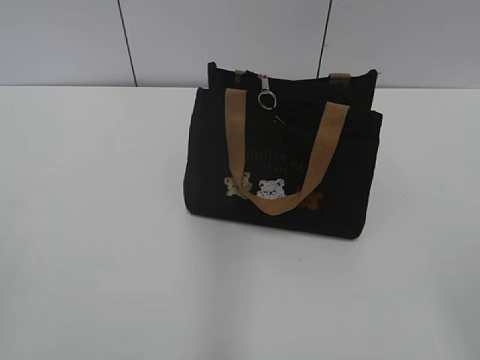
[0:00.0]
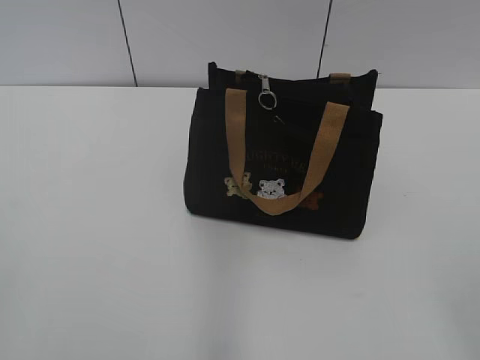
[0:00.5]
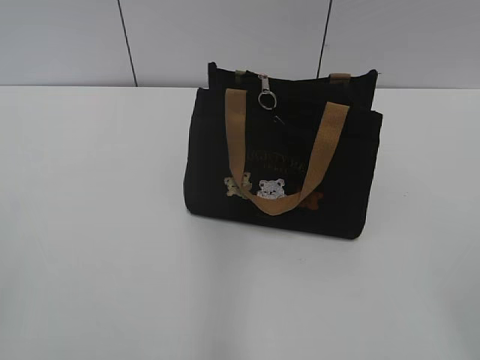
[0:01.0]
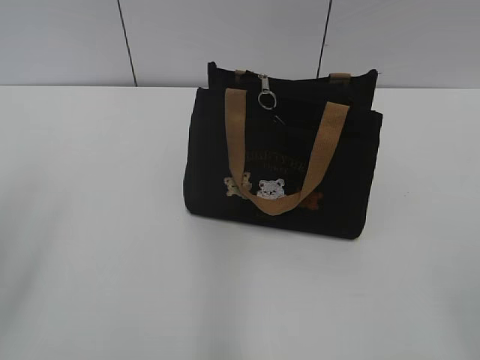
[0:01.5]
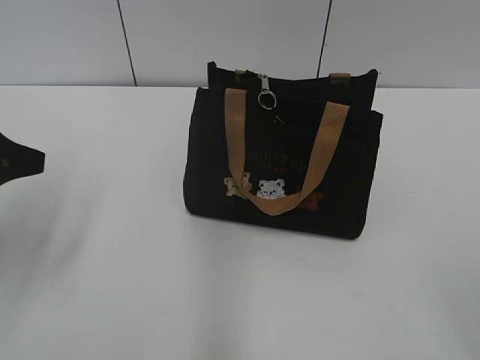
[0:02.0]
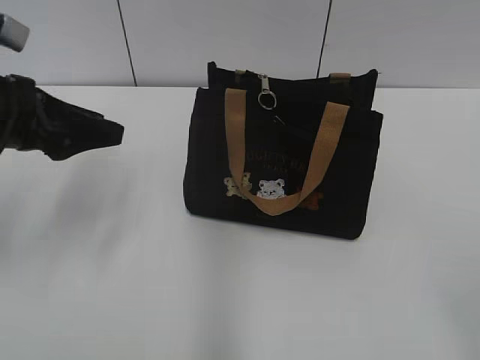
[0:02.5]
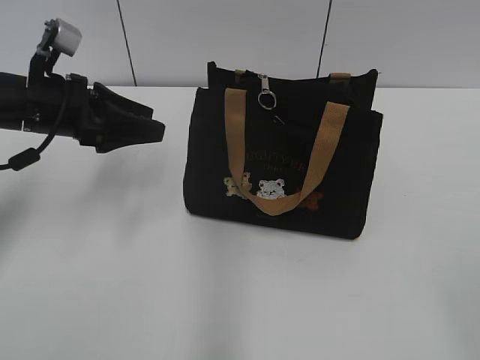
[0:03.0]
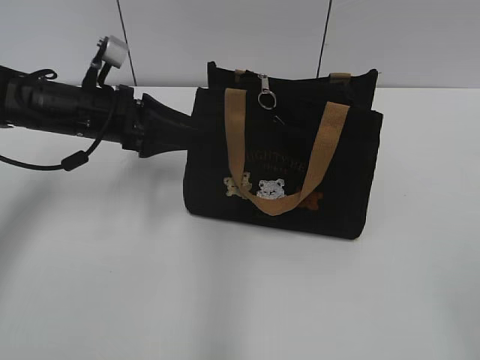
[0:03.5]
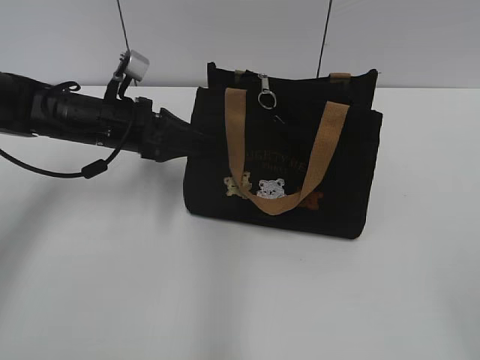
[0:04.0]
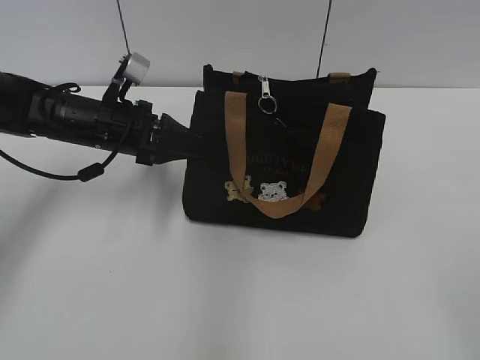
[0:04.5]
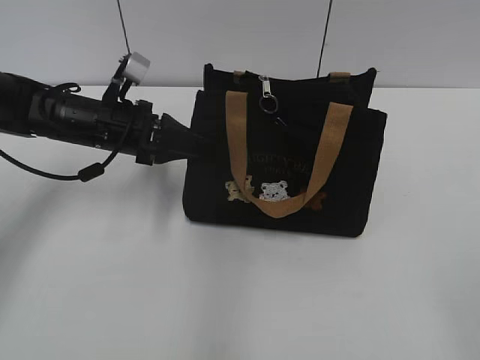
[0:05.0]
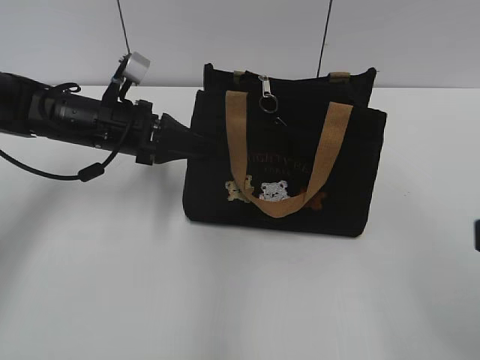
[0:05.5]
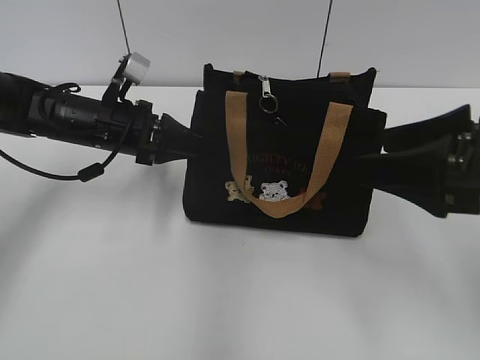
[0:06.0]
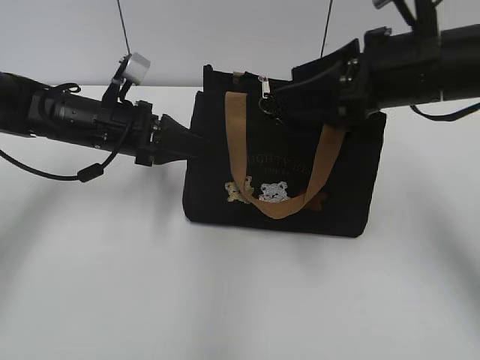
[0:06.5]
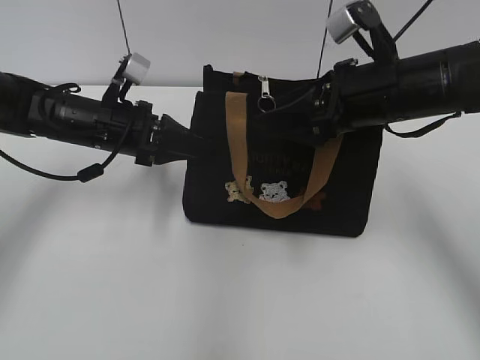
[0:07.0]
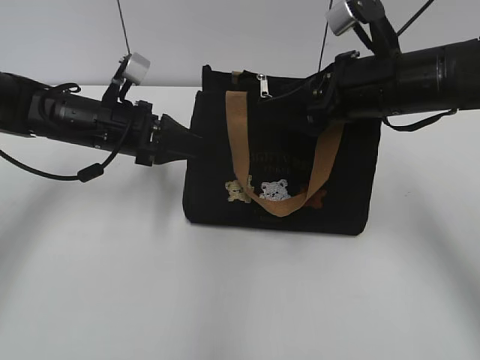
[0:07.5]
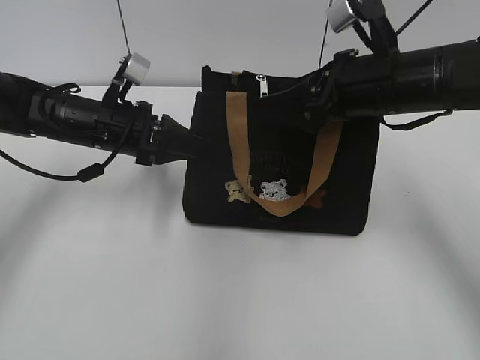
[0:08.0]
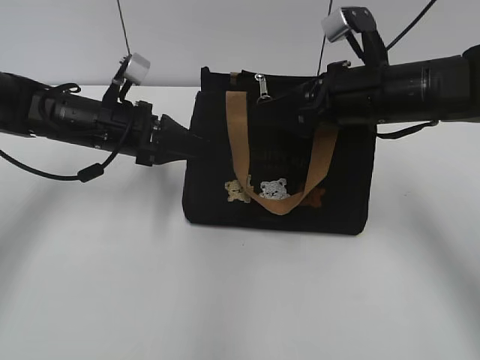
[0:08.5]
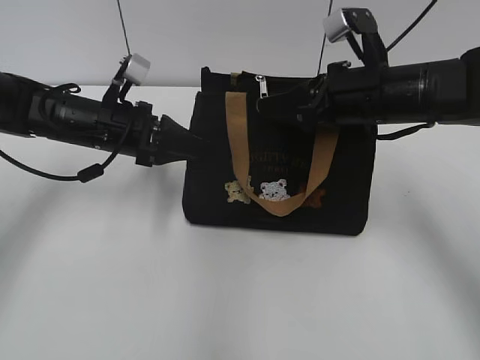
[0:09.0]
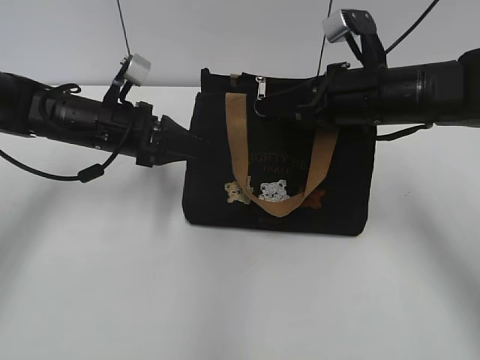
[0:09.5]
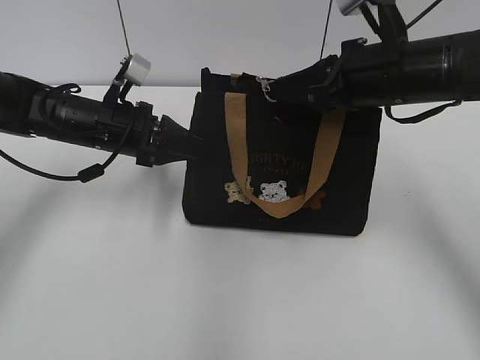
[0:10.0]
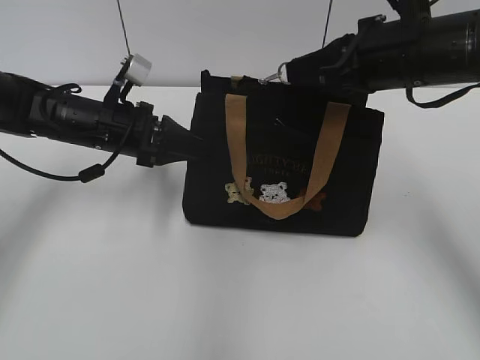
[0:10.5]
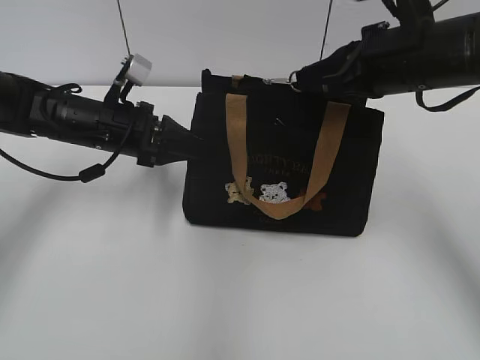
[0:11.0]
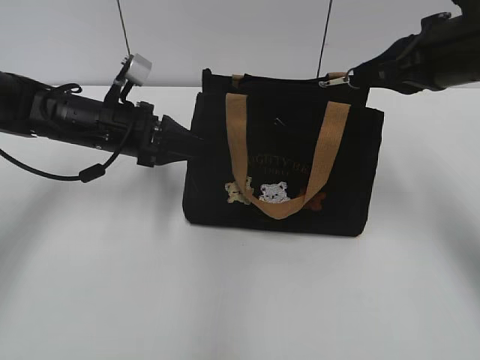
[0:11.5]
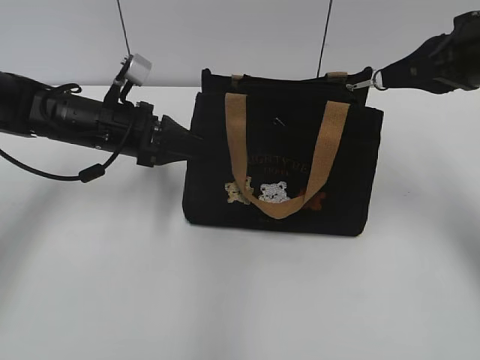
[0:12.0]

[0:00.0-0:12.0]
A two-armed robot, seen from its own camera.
0:02.0 to 0:04.0: The left gripper travels forward, to the right and downward by about 25 cm.
0:04.0 to 0:06.0: The right gripper travels forward by approximately 20 cm, while the left gripper closes up.
0:06.0 to 0:08.0: The right gripper moves forward and to the left, roughly 15 cm.
0:08.0 to 0:10.0: The right gripper closes up.
0:10.0 to 0:12.0: The right gripper shifts some 10 cm to the right.

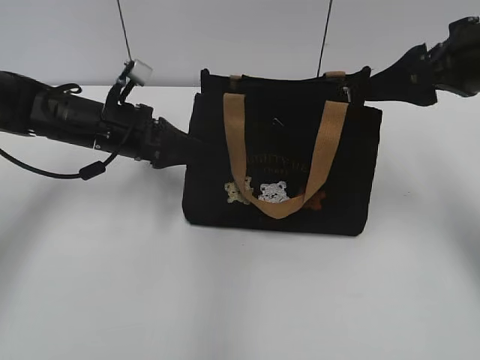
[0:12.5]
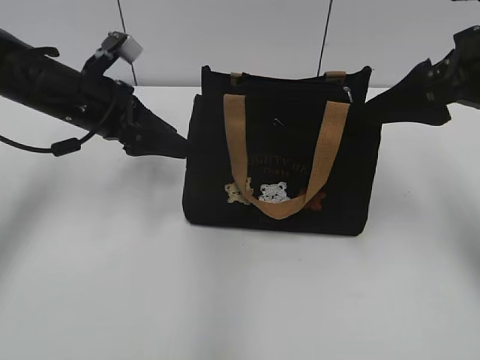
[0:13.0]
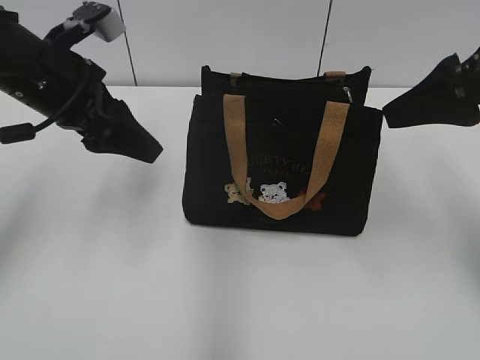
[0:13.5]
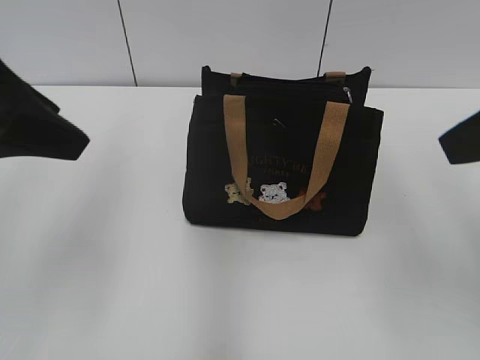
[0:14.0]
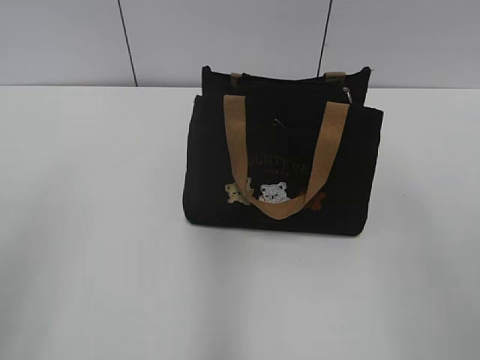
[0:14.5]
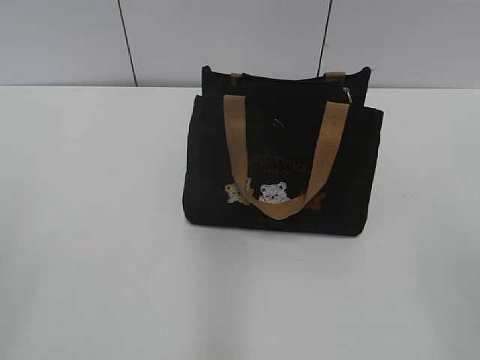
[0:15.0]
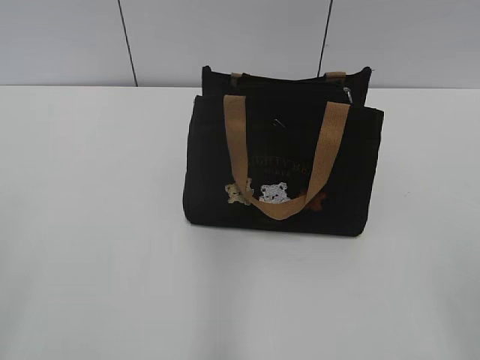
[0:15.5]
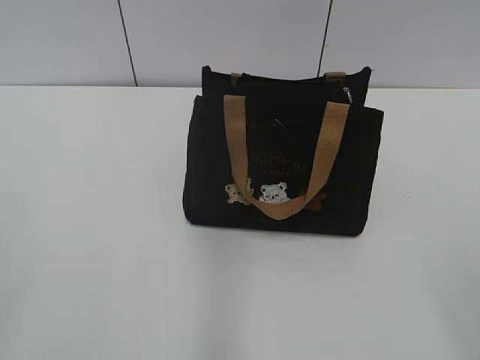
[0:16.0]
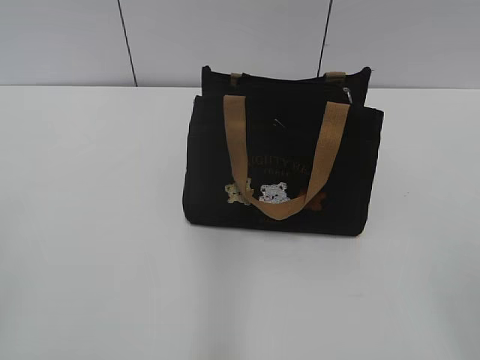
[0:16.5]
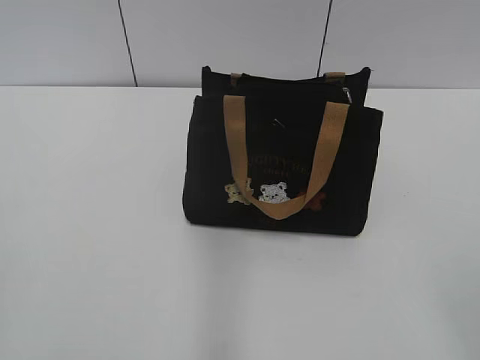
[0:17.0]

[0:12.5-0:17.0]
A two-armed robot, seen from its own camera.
0:12.5 to 0:14.5: The right gripper shifts approximately 20 cm backward. Meanwhile the left gripper travels backward and upward by about 35 cm, and opens up.

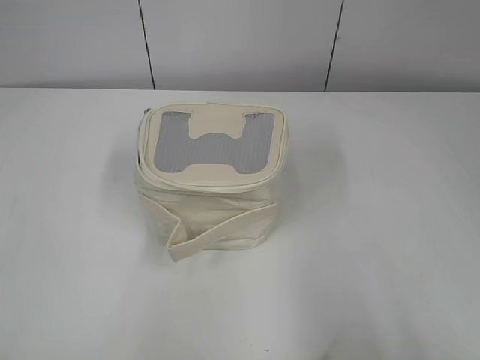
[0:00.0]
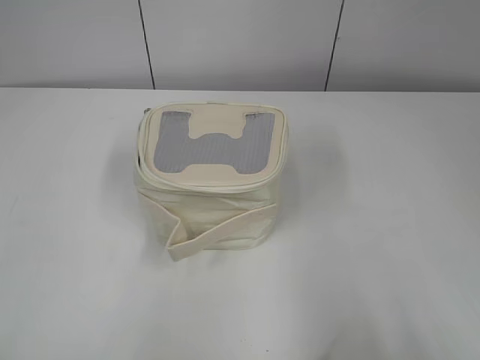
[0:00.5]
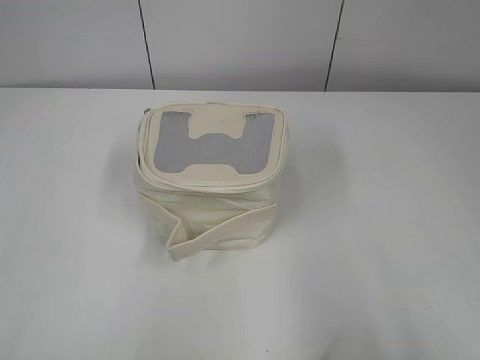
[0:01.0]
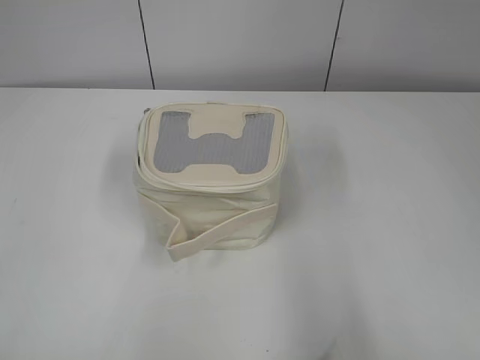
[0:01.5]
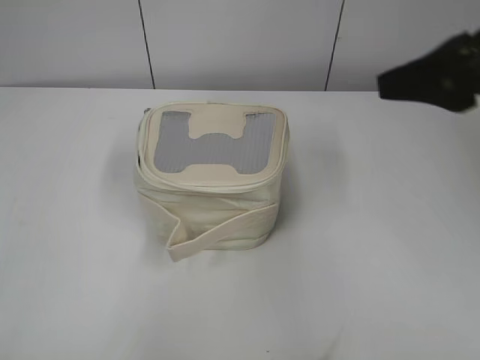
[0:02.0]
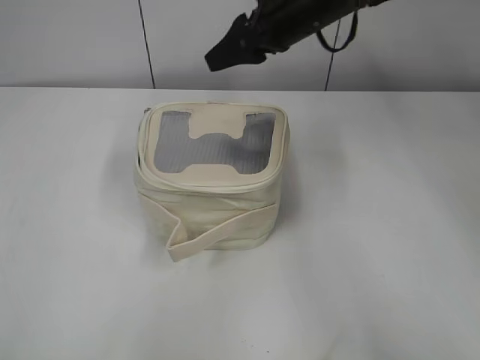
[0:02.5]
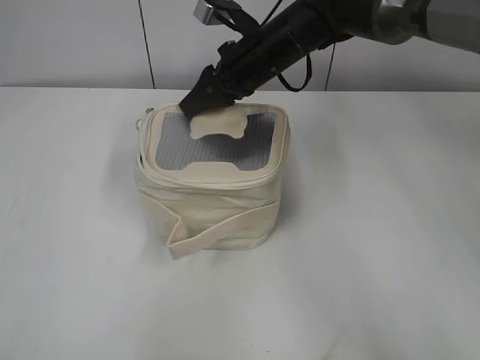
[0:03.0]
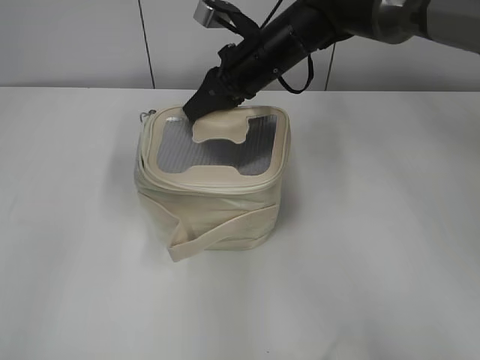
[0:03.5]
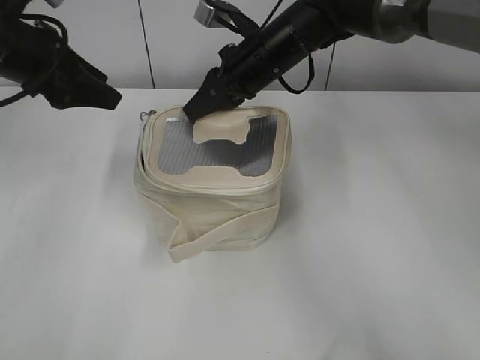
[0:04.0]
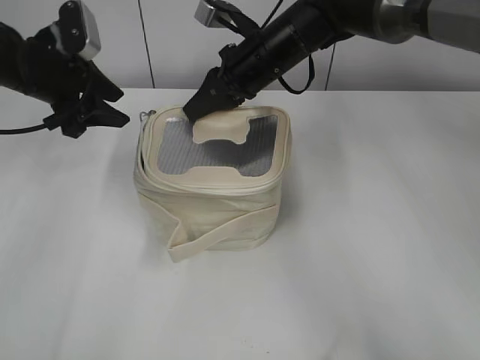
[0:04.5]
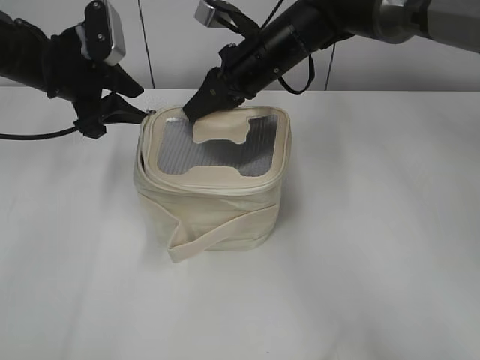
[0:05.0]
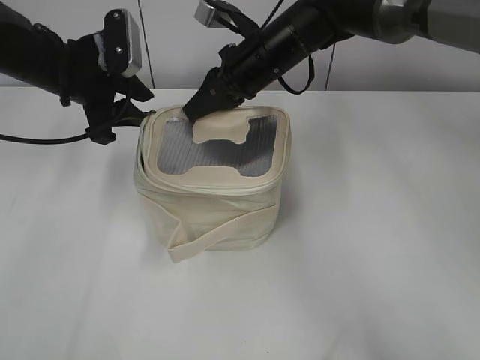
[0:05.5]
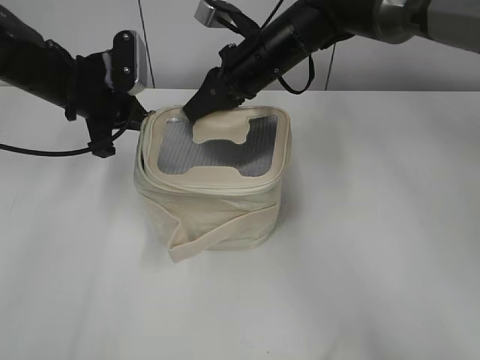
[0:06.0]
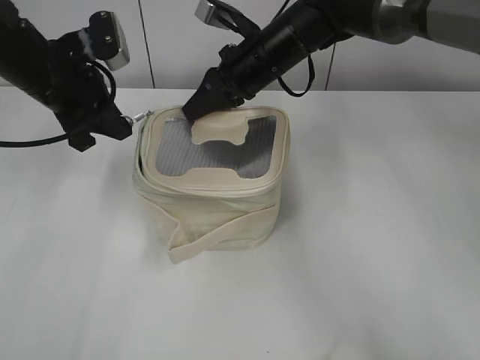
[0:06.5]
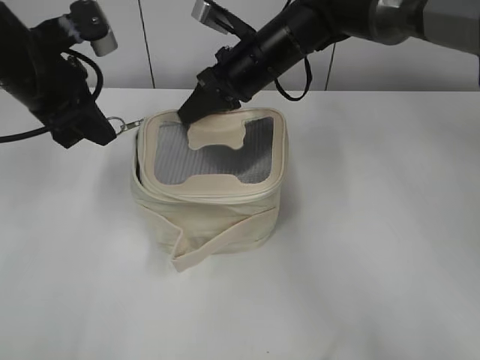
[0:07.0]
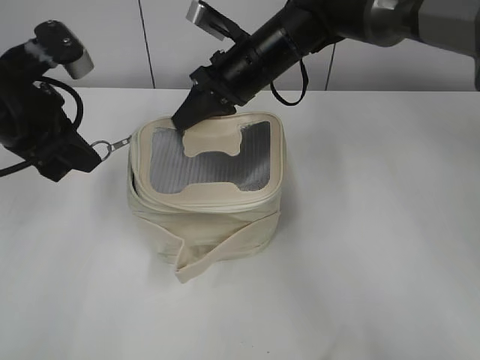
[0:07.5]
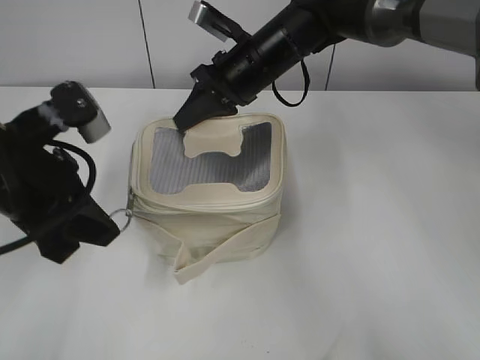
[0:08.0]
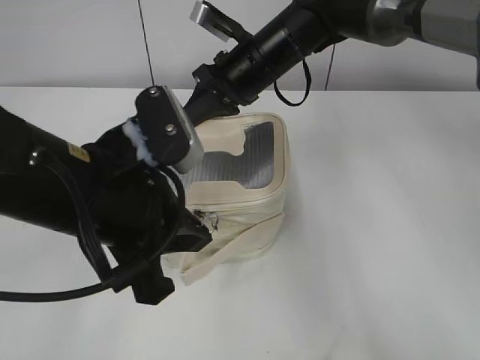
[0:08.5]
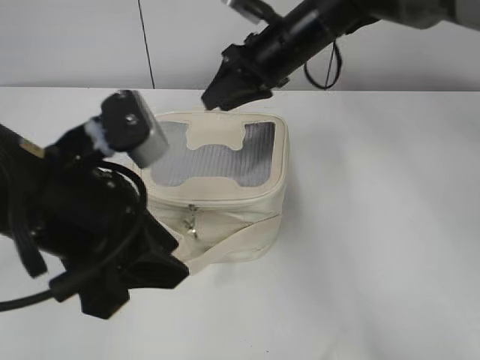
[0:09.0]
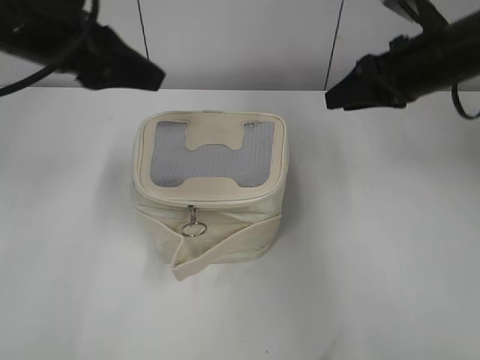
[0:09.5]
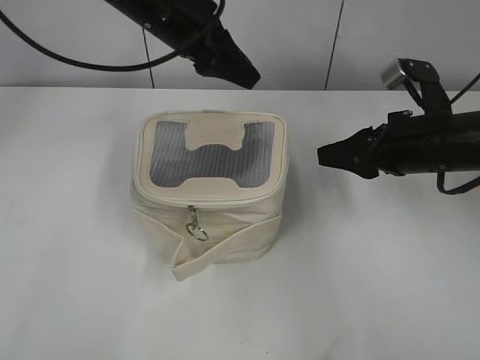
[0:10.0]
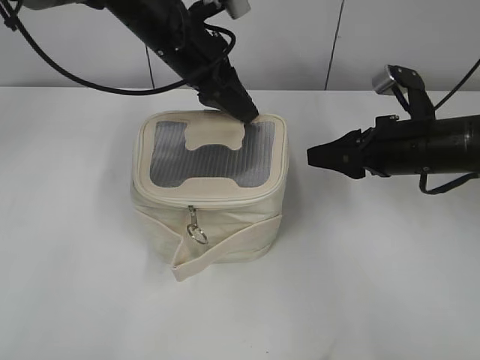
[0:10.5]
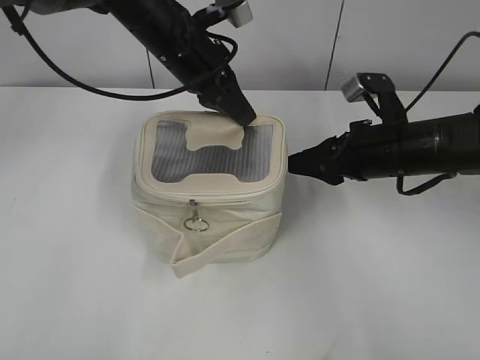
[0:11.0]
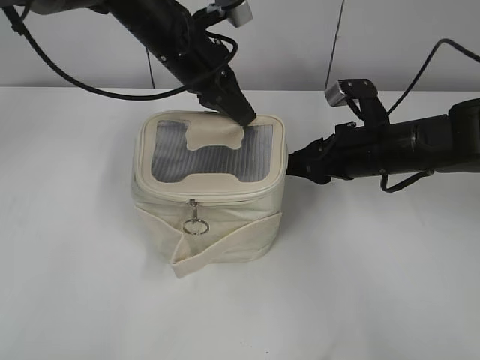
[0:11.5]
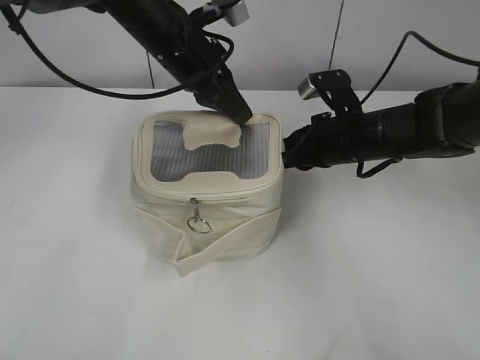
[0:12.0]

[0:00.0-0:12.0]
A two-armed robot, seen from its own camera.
Step, 0:00.0 to 0:08.5: Zip up the bag with your left hand.
0:02.0 to 0:04.0: The right gripper goes approximately 35 cm forward, to the left and downward, and closes its fingers; the left gripper shifts roughly 35 cm forward, and opens.
0:04.0 to 0:06.0: The left gripper shifts about 5 cm downward, and closes up.
0:06.0 to 0:08.0: The left gripper moves backward, approximately 15 cm.
0:08.0 to 0:10.0: The right gripper travels to the right and backward by some 25 cm, and opens; the left gripper goes approximately 20 cm forward and to the right, and opens its fingers.
0:10.0 to 0:12.0: The right gripper shifts approximately 10 cm to the left and forward; the left gripper ends up approximately 5 cm from where it was, and closes up.
